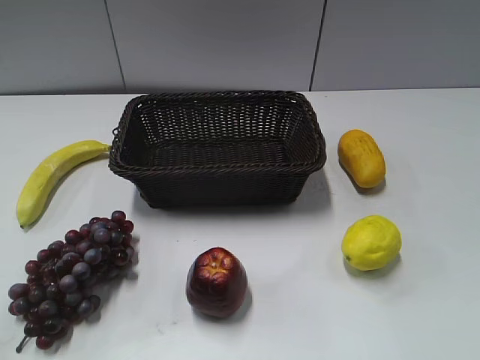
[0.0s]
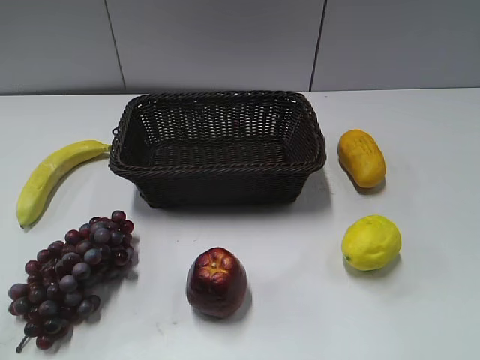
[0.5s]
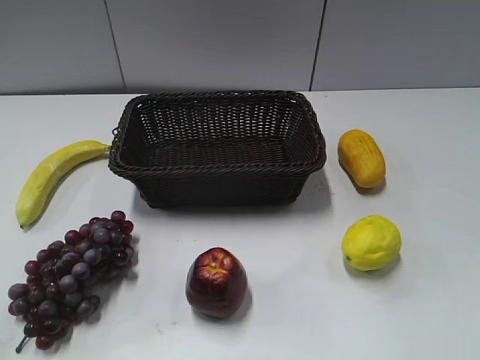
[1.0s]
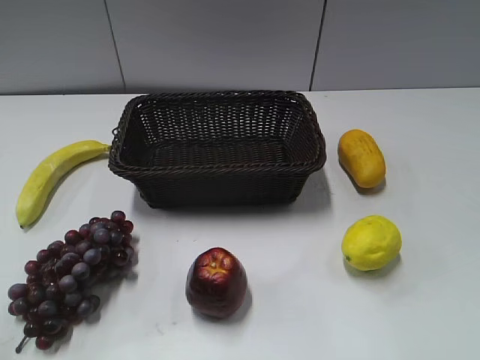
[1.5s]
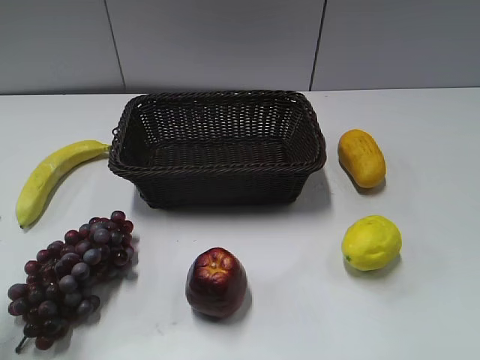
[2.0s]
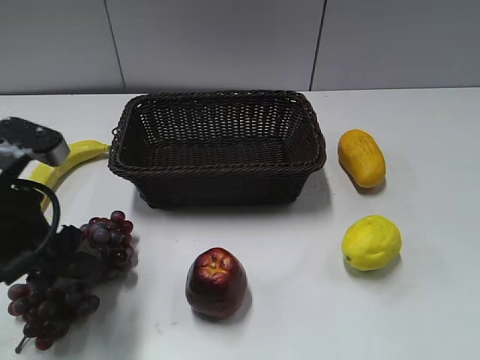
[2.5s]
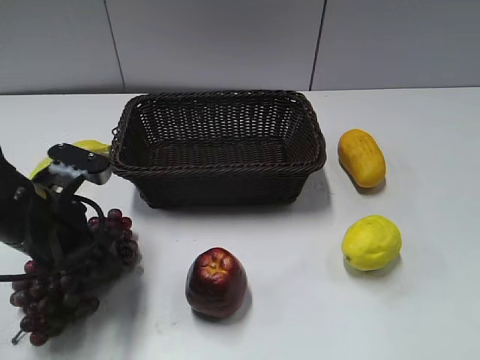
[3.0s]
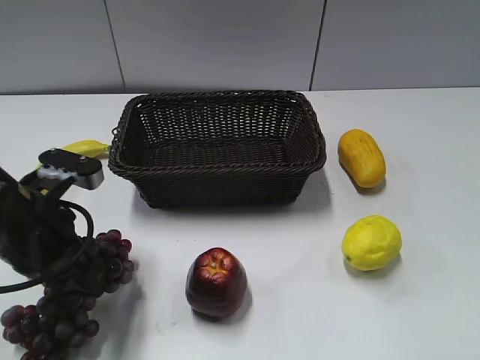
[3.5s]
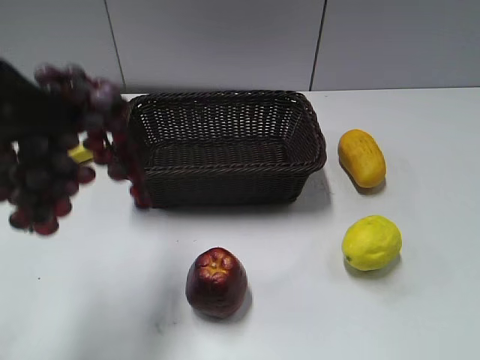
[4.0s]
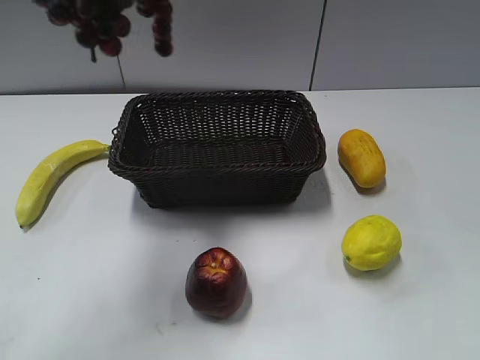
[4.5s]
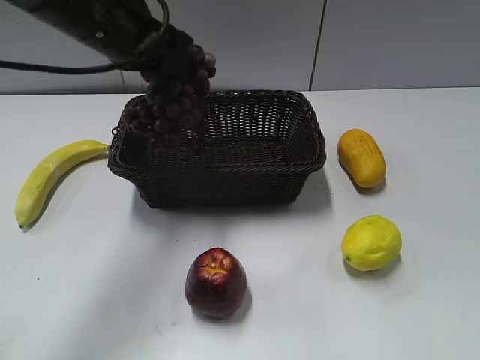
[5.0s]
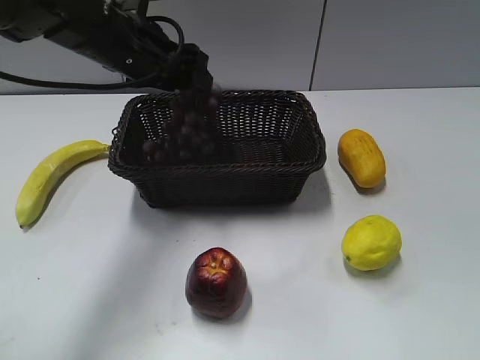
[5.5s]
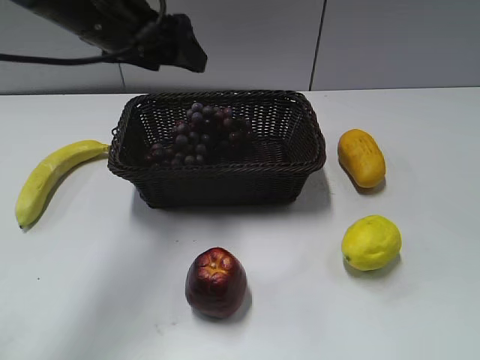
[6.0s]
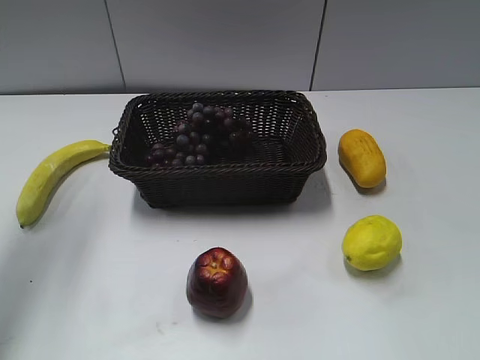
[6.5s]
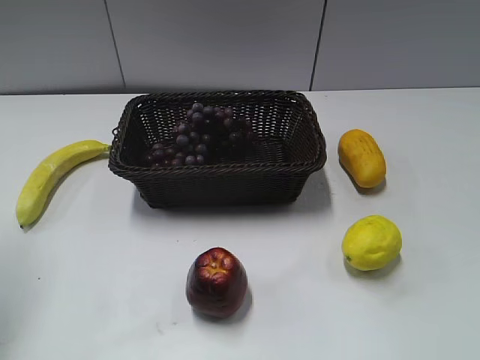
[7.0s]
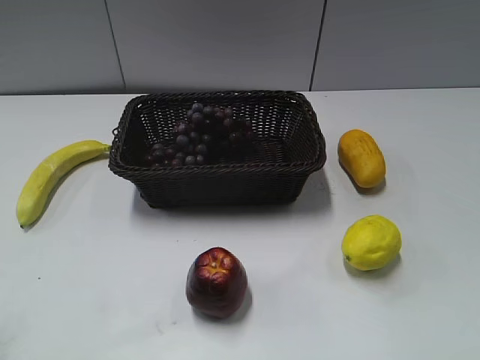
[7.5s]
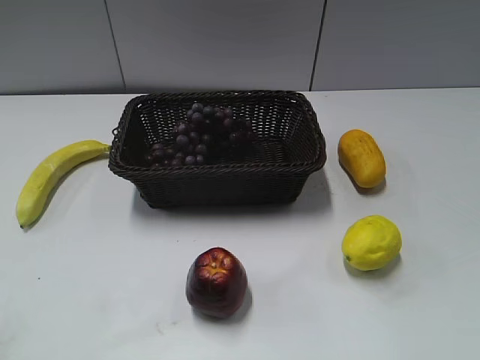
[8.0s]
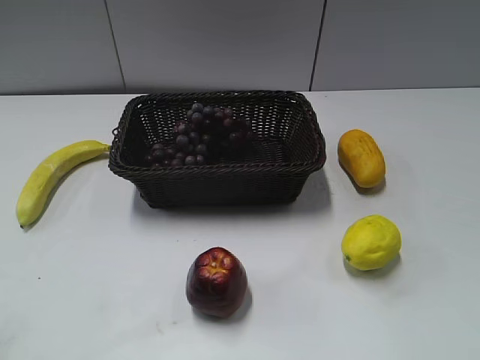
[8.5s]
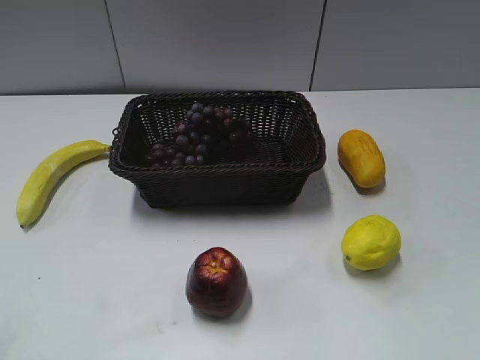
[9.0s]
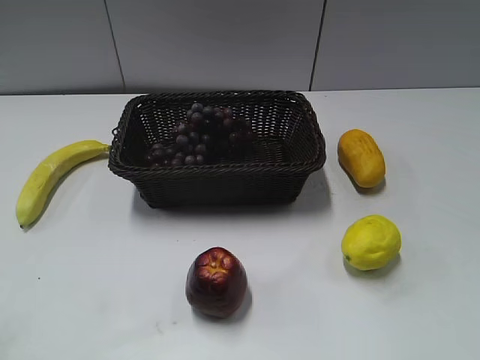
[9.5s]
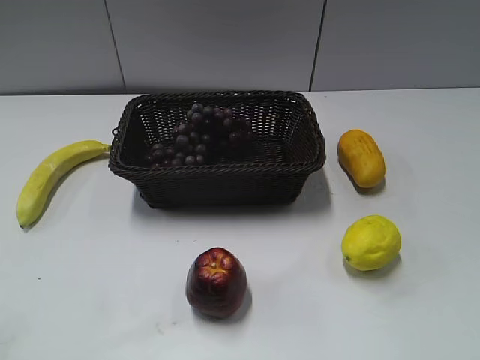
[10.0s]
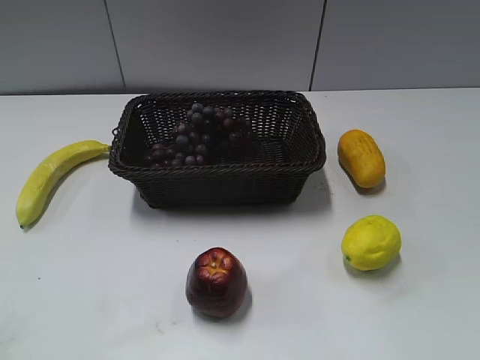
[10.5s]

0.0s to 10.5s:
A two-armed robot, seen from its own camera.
Step, 2.0s to 3.0s: Grasp the grape with left gripper.
Step, 3.5s to 5.5s: Place the grape in the basket with left gripper.
2.0s to 4.0s: The left gripper heads upward, covering about 15 cm, and closes up.
4.0s to 6.5s: The left gripper heads to the left and forward, covering about 15 cm, and opens.
6.5s to 8.5s: The left gripper shifts about 25 cm backward.

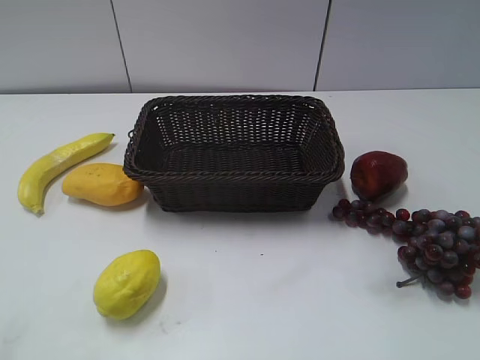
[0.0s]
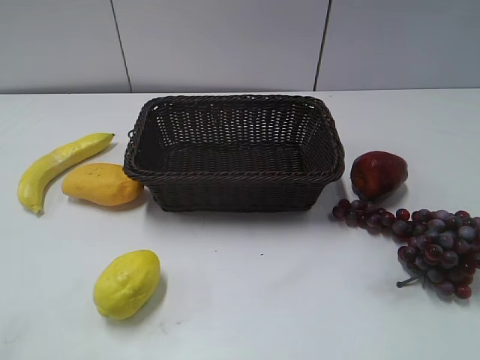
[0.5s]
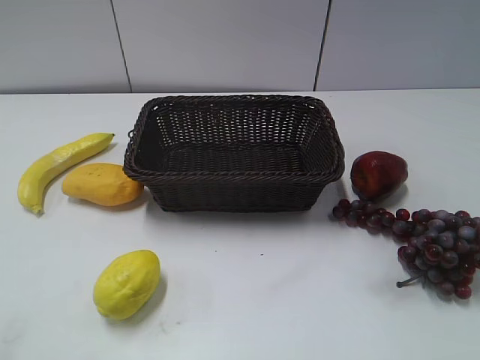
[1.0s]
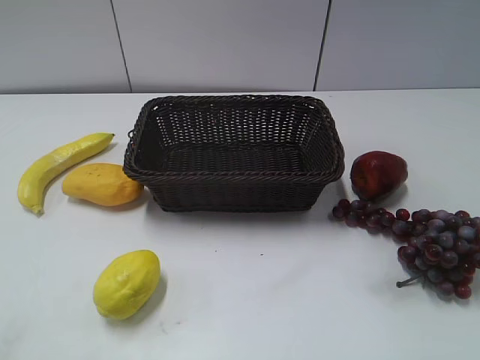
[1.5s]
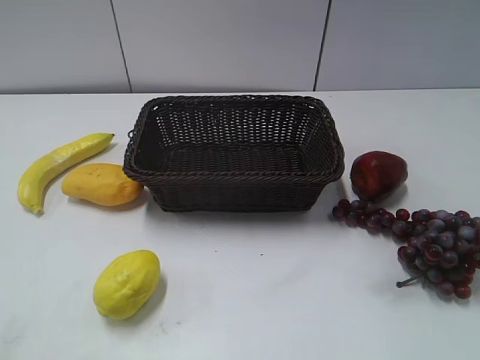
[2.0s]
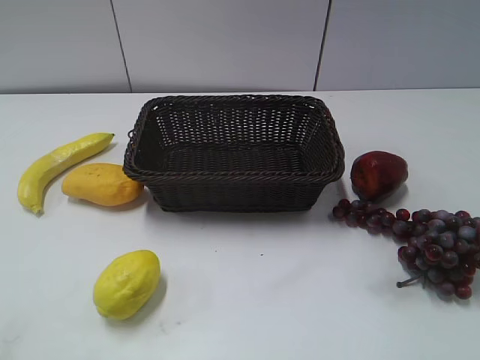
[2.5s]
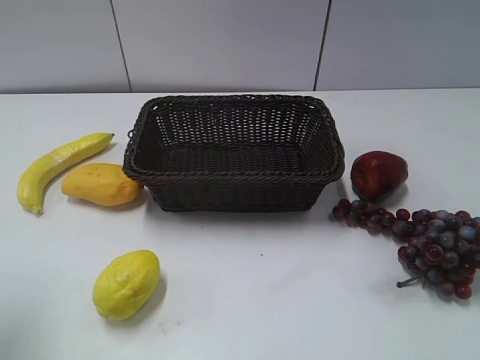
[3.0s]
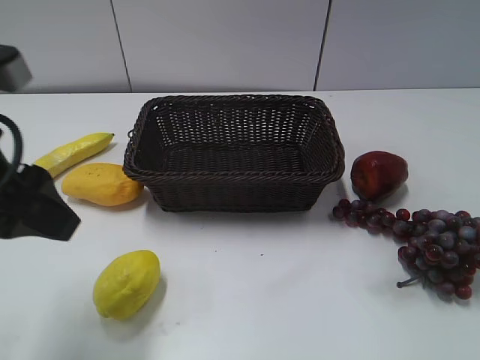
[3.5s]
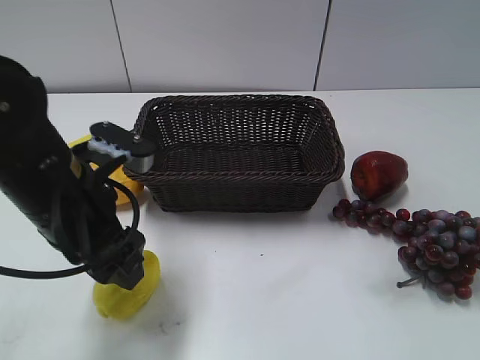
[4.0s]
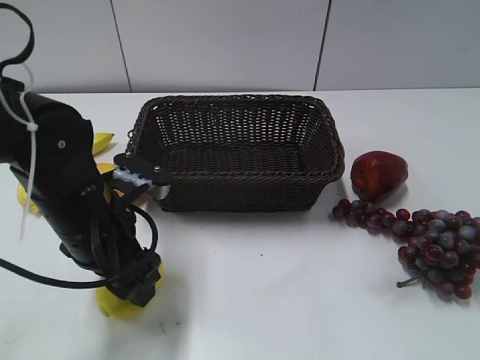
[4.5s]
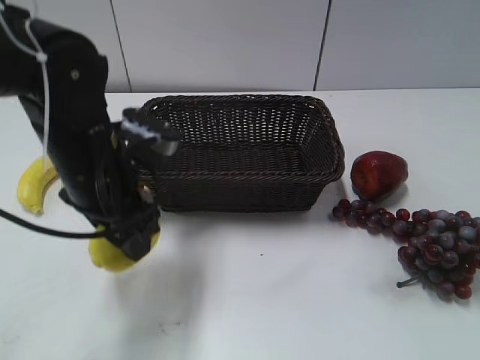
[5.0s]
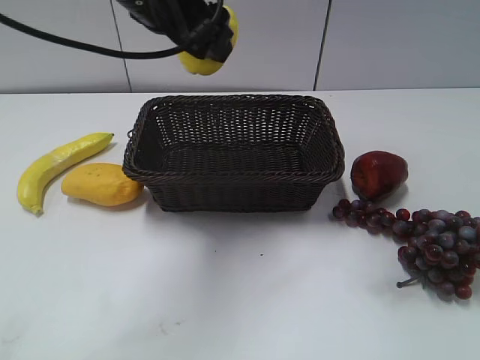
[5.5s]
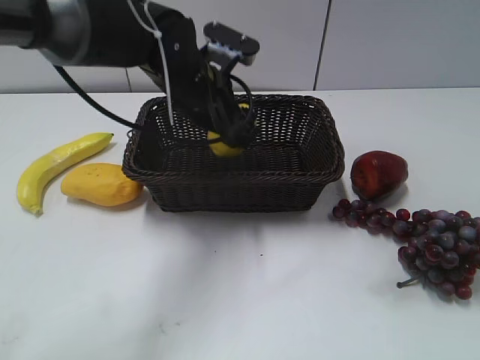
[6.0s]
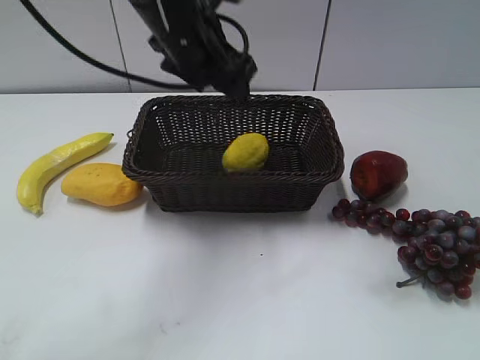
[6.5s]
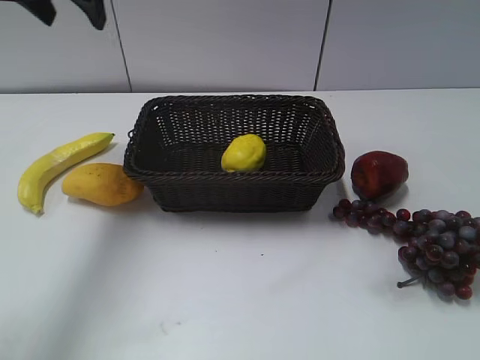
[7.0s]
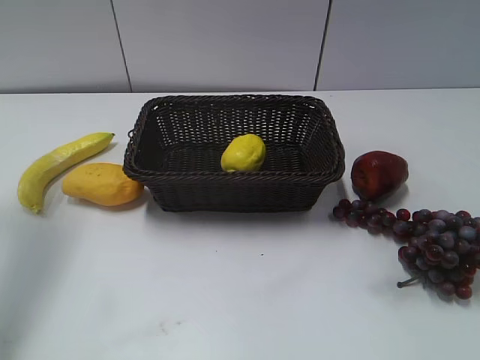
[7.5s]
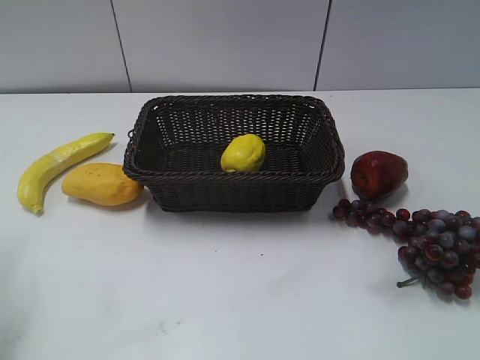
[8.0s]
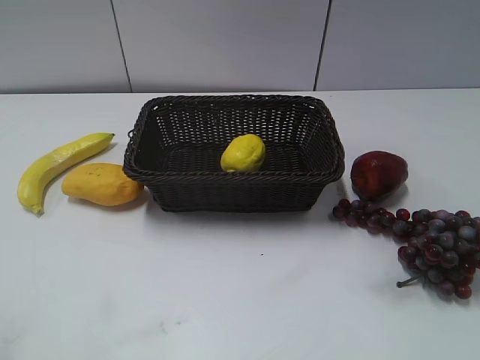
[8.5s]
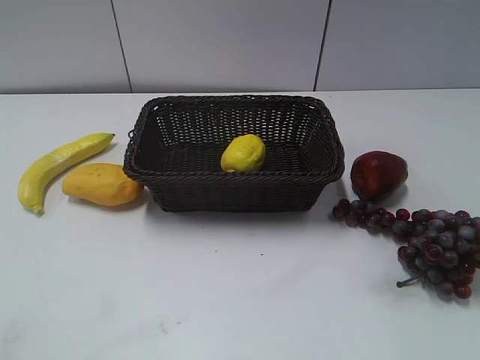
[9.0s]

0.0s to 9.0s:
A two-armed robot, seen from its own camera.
Step, 3.5s to 4.5s: Grasp the lemon with left gripper.
Step, 5.0s to 6.0s: Place the lemon in the basket with left gripper.
2.0s to 4.5s: The left gripper goes approximately 35 cm forward, to the right and downward.
4.5s to 7.0s: The left gripper goes up and down, about 20 cm each way, reversing 2 times.
7.0s to 9.0s: The left gripper moves backward, roughly 40 cm.
